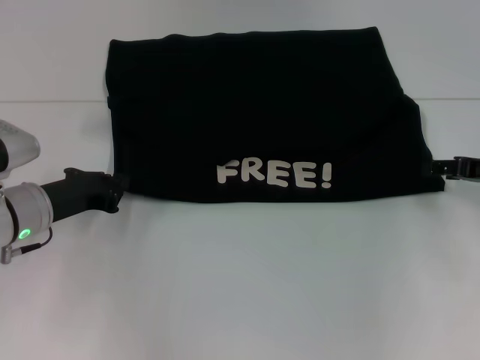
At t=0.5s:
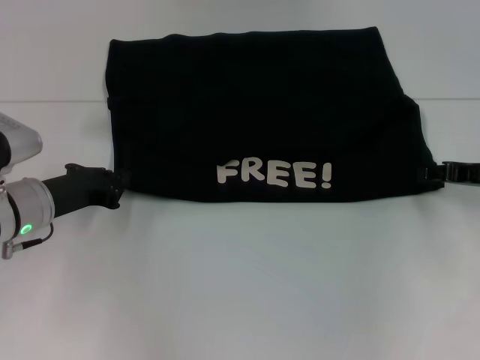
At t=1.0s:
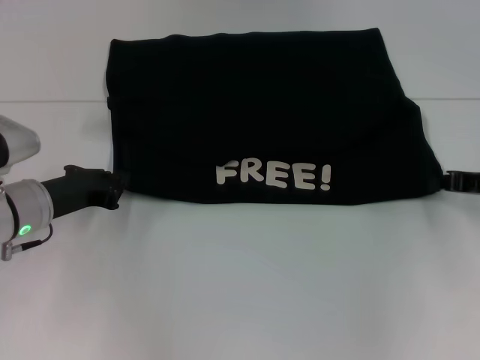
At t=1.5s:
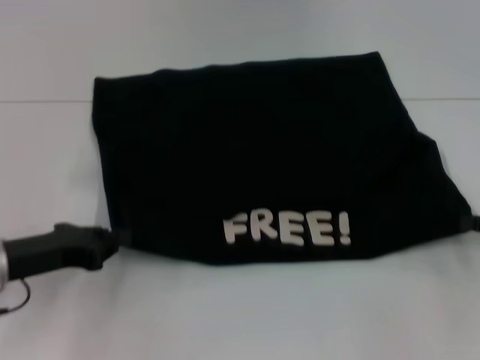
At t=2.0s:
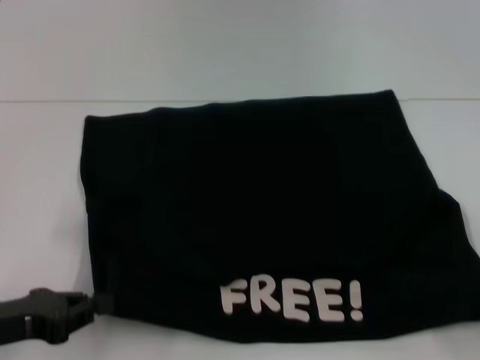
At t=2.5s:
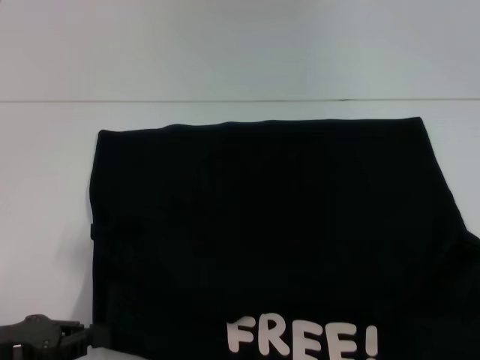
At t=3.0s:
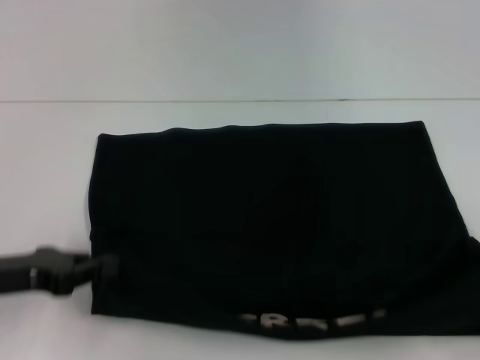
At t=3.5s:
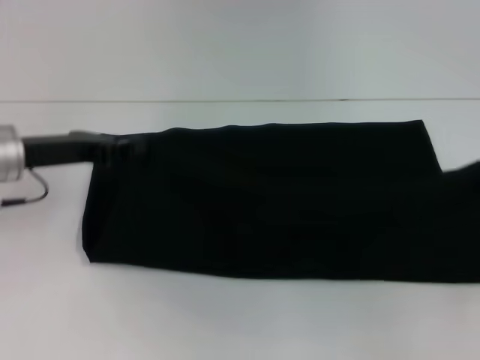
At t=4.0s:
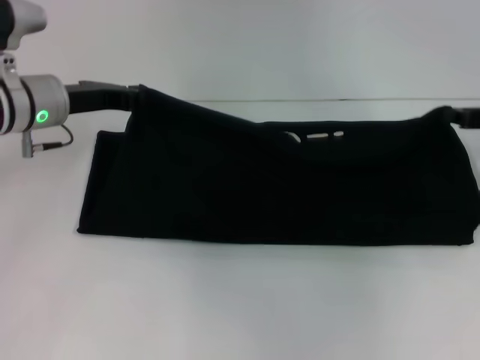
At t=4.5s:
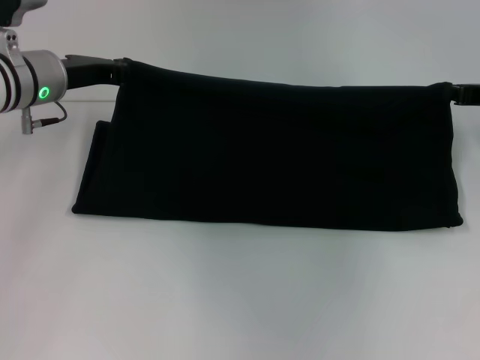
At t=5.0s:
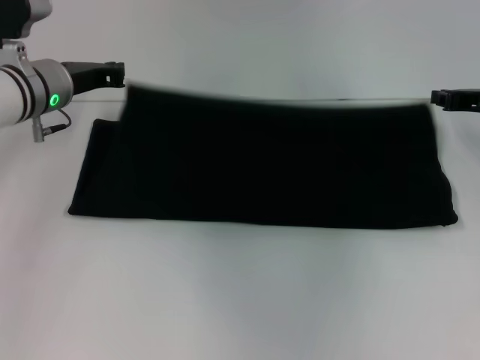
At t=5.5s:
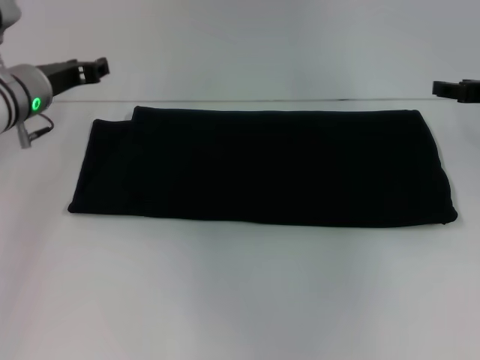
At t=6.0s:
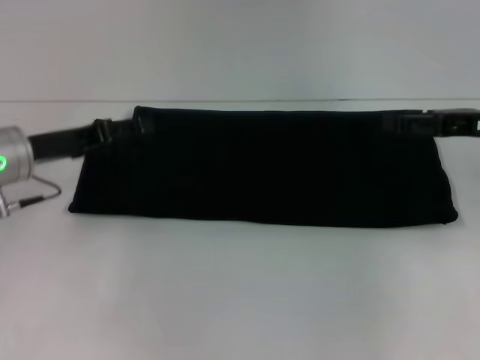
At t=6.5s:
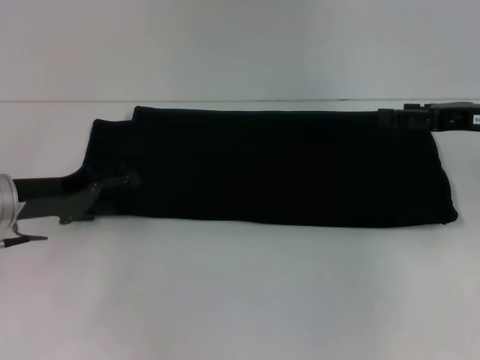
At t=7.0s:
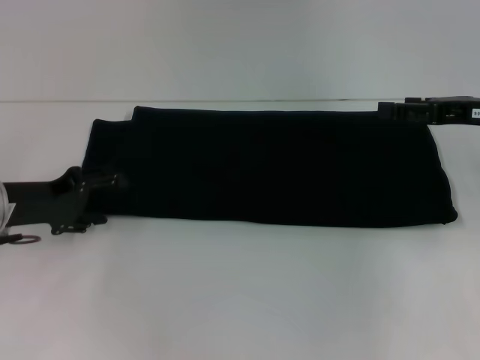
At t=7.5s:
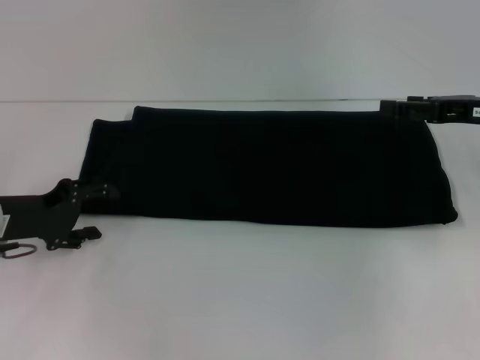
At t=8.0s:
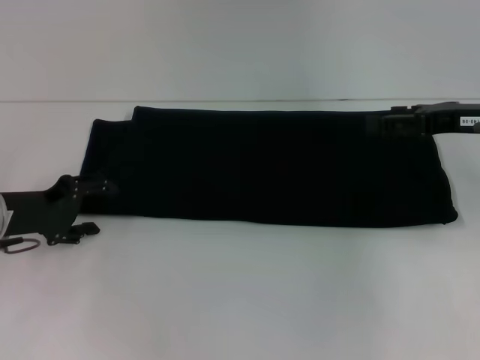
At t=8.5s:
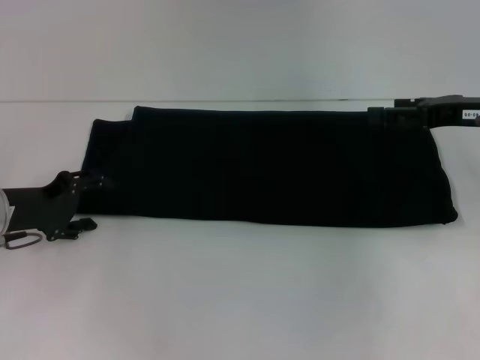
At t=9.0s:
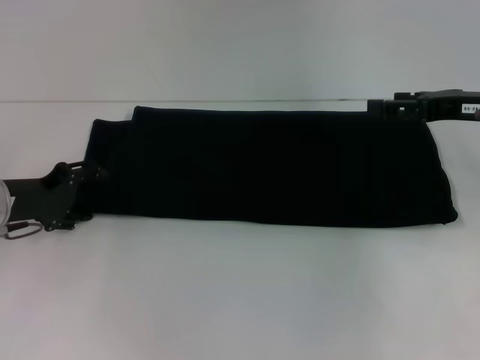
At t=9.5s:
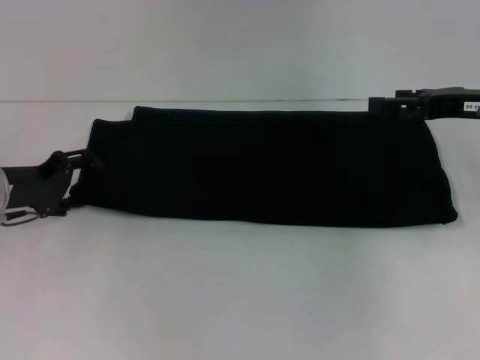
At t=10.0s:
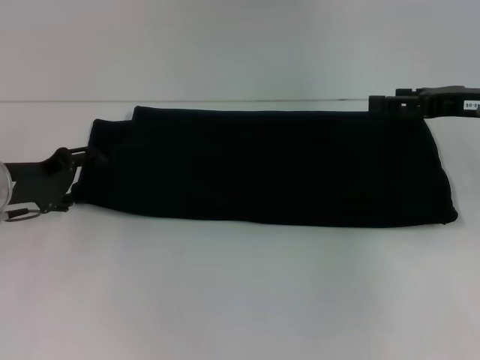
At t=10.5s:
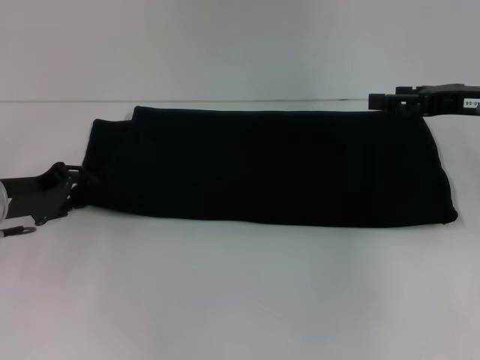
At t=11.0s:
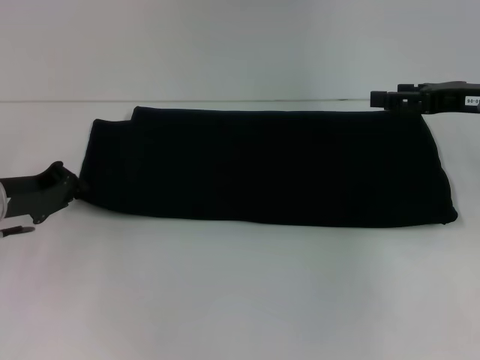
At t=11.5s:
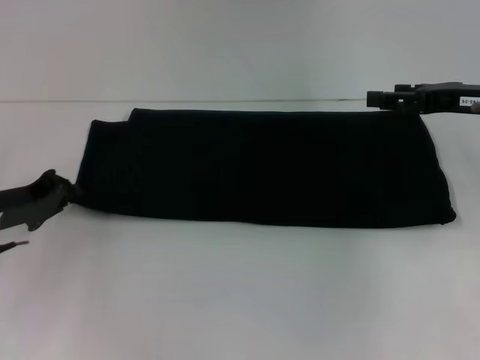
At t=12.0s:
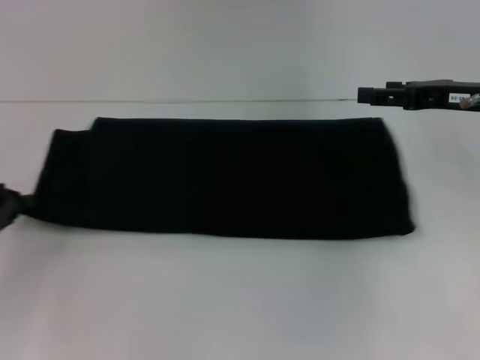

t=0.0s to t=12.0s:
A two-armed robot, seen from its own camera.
Step, t=0.0s to t=2.0s: Pull the clothes with your left hand.
Step, t=0.0s to t=2.0s: Pull the clothes with your right hand.
Step, t=2.5s to t=5.0s: Fold the clothes with your right hand.
t=0.0s to t=2.0s: Both grippers travel together backward, roughly 15 cm. The right gripper closes its fingers.
t=2.0s to t=4.0s: Both grippers move forward, approximately 20 cm.
t=4.0s to t=6.0s: The left gripper moves backward, roughly 5 cm, and opens its fingers; the right gripper opens.
t=6.0s to t=8.0s: The left gripper shifts by approximately 5 cm.
t=8.0s to t=10.0s: The grippers move only a little.
t=10.0s to t=12.0s: The left gripper goes about 10 cm backward and to the left, and closes up.

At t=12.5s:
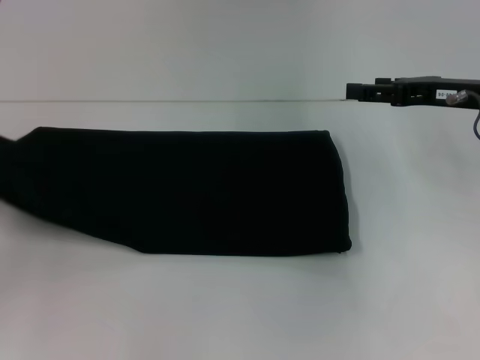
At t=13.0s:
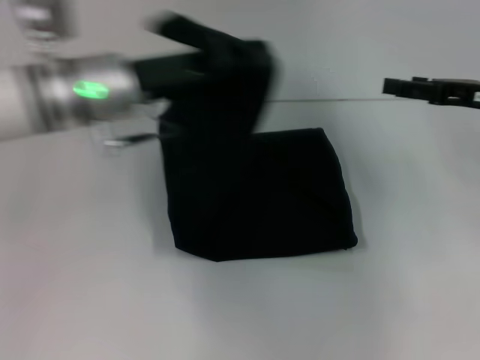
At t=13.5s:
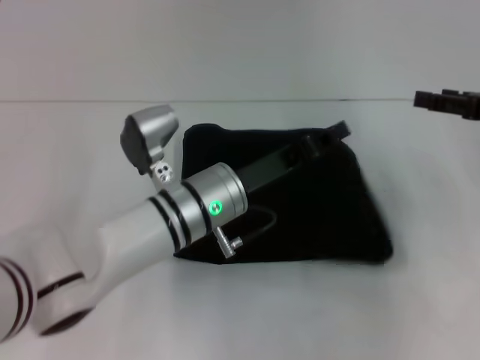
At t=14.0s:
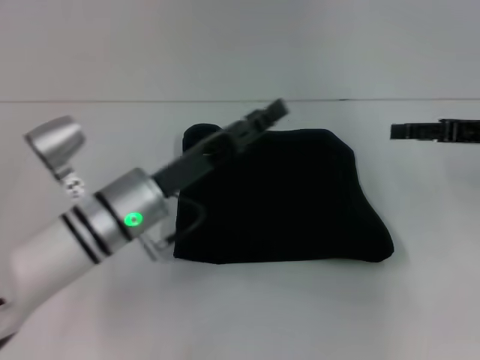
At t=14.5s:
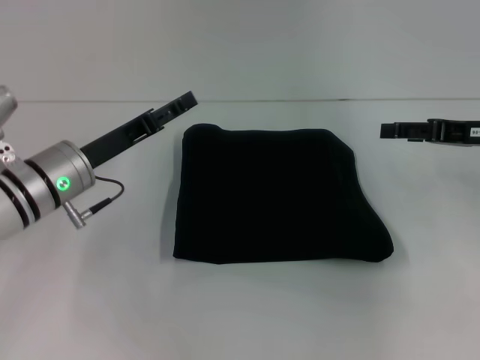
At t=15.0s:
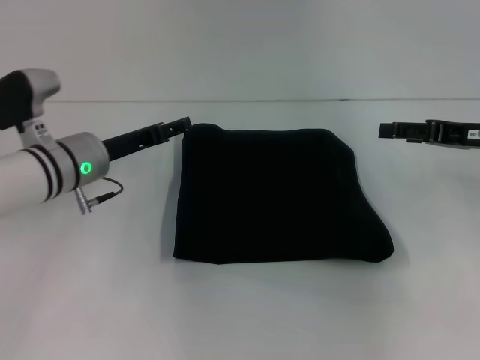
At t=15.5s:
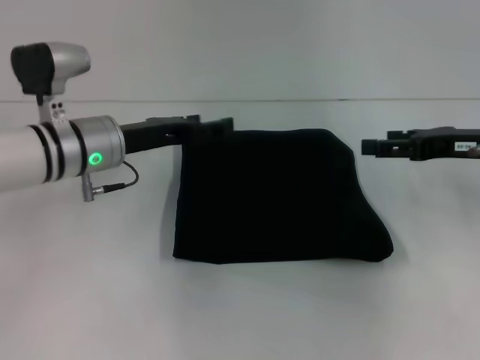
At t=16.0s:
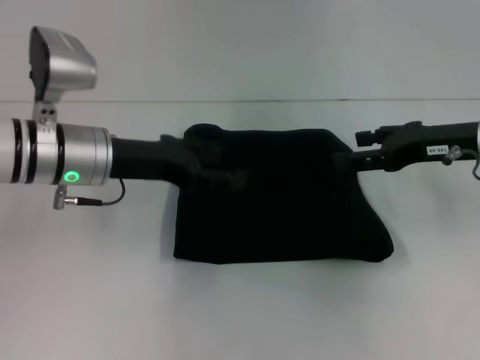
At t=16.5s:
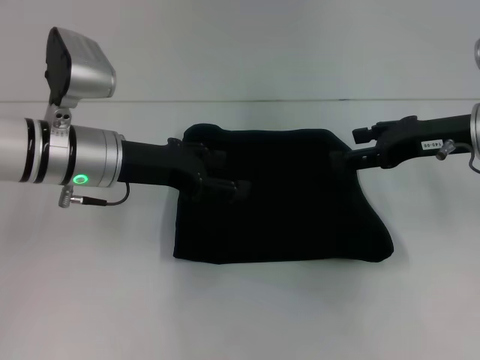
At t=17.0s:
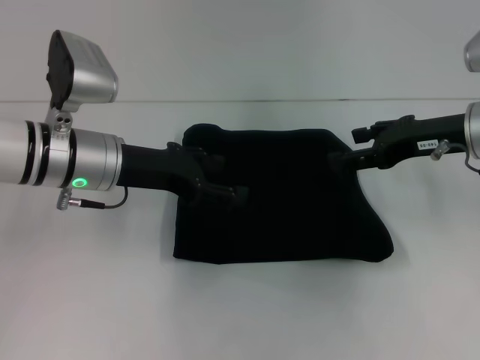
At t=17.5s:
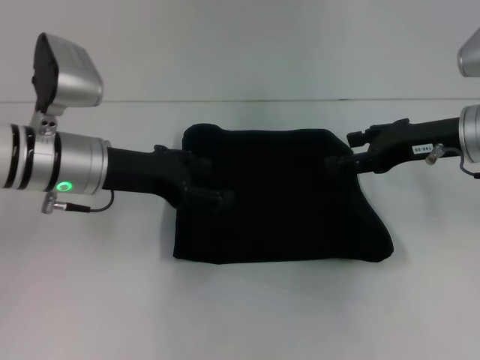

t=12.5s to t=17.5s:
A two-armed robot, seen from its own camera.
t=12.5s to t=15.0s: The right gripper changes place by approximately 5 cm. Meanwhile the left gripper moves to the right and forward, about 25 cm, and opens its fingers.
t=15.0s to t=17.5s: The right gripper shifts roughly 5 cm to the left, while the left gripper moves upward, approximately 5 cm.

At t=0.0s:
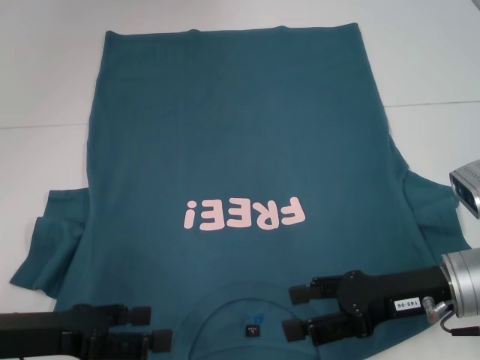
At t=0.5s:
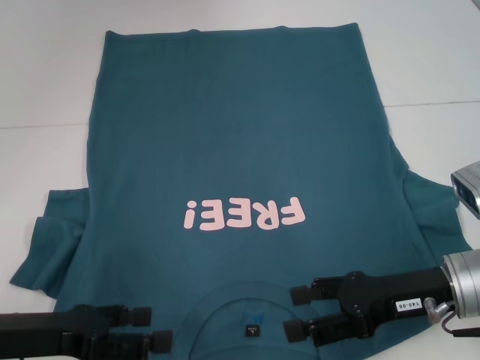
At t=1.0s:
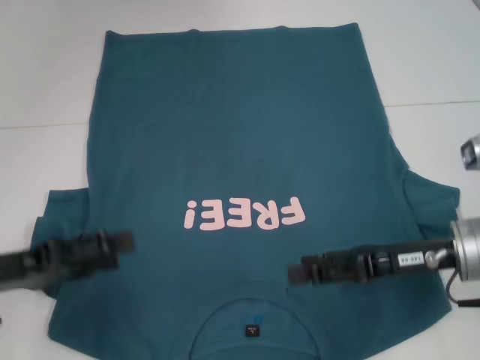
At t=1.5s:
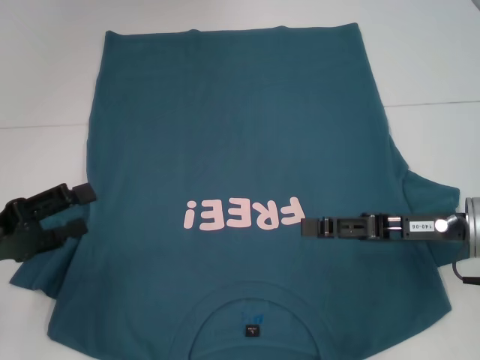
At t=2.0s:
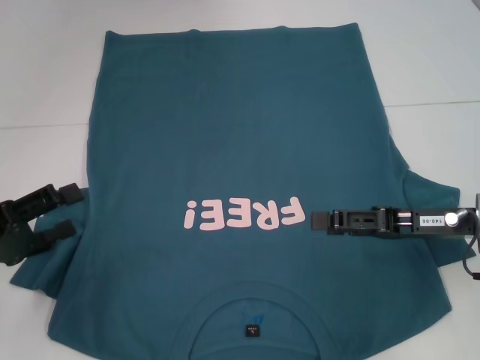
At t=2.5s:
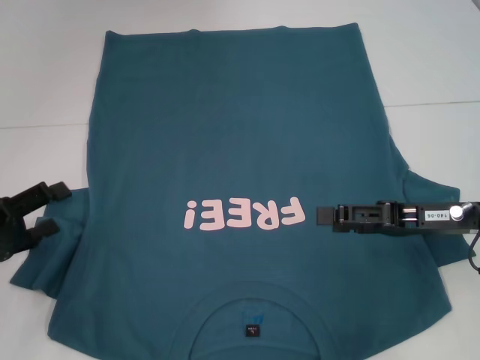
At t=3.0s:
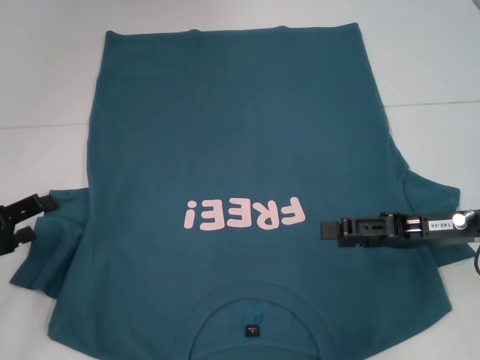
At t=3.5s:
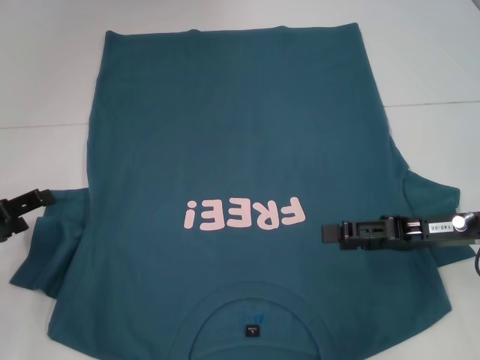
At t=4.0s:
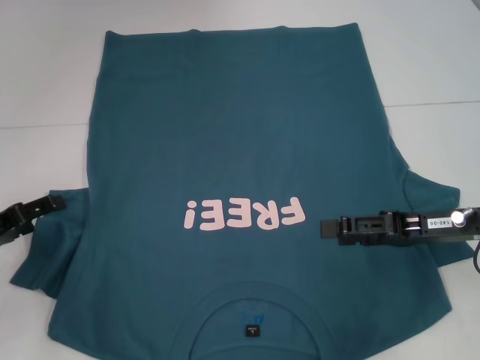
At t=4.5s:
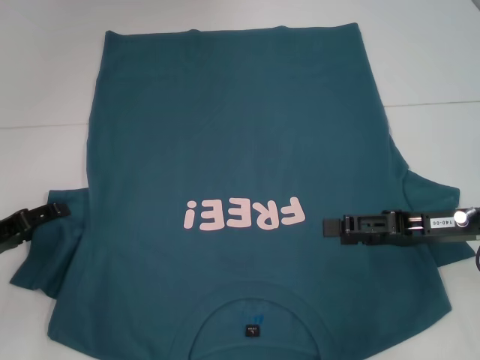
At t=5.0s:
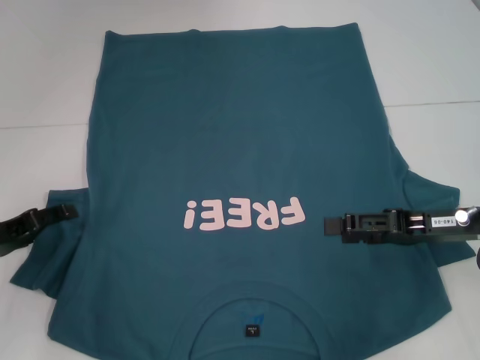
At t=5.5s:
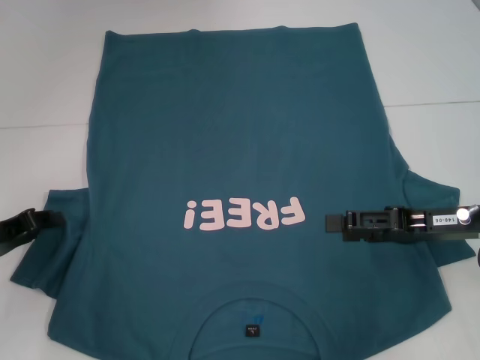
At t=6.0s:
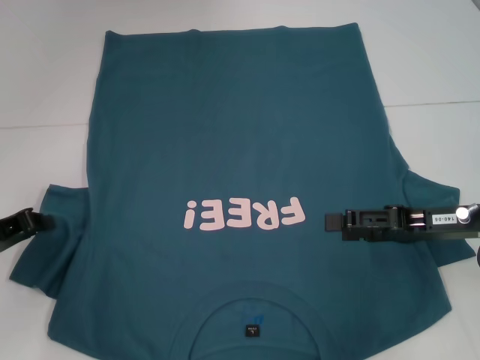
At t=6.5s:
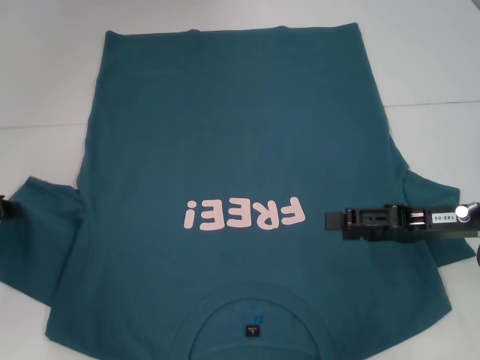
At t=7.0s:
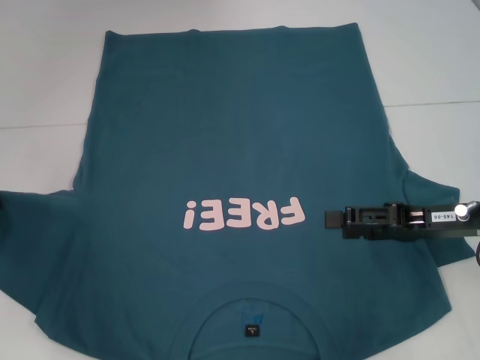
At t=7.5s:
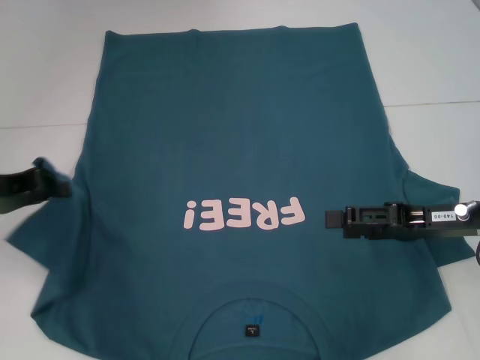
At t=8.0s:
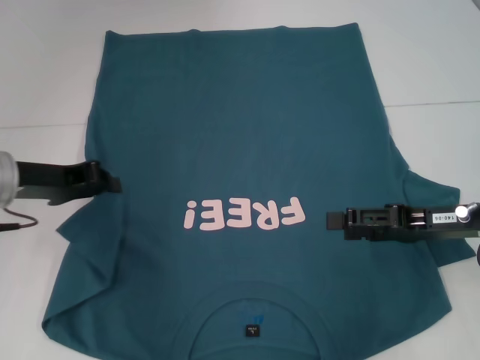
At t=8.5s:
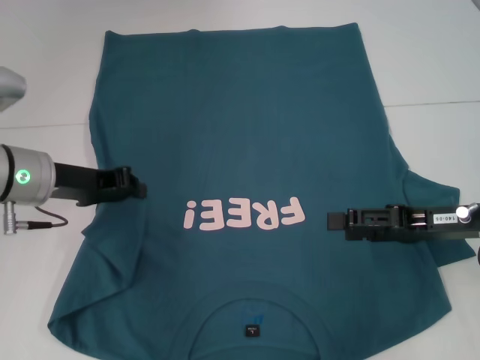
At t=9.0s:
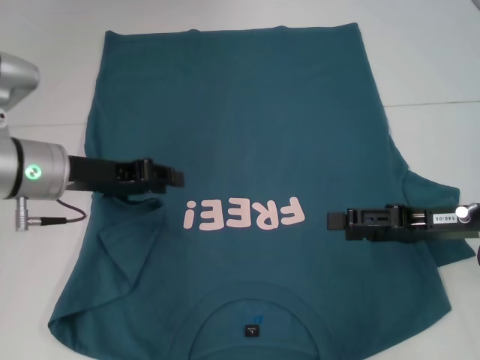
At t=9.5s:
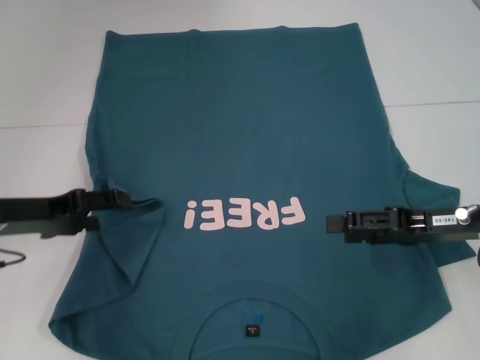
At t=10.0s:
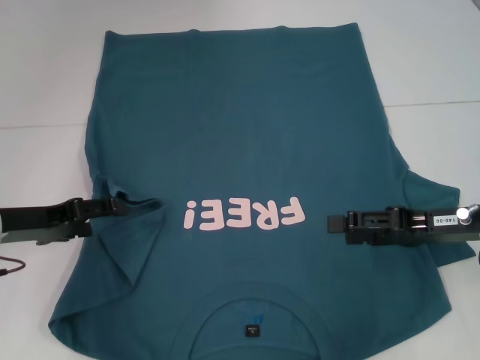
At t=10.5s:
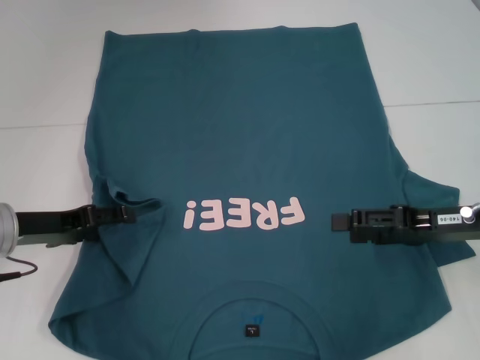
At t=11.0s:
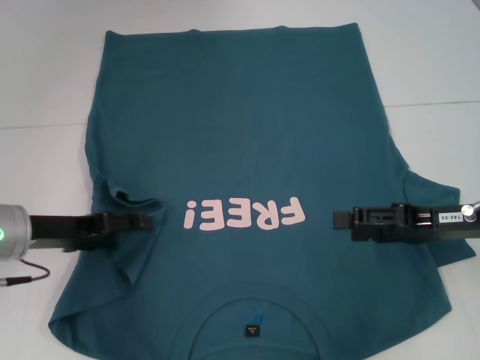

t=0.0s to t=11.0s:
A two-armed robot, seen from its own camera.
t=0.0s to t=2.0s: The right gripper moves approximately 5 cm, while the left gripper heads to the left, covering approximately 5 cm.
t=2.0s to t=3.5s: The left gripper moves approximately 5 cm.
t=3.5s to t=5.5s: The left gripper closes its fingers.
t=5.5s to t=7.5s: The left gripper shifts approximately 10 cm upward, and closes.
t=7.5s to t=9.0s: The left gripper shifts about 10 cm to the right.
t=9.0s to t=11.0s: The left gripper ends up roughly 5 cm from where it was, and opens its fingers.
